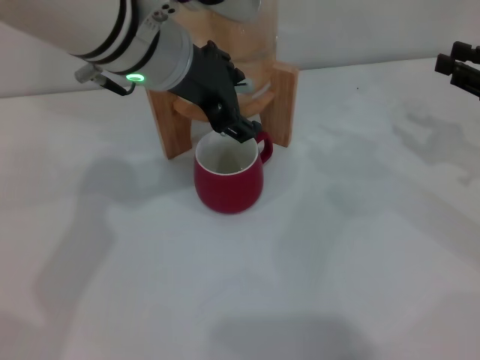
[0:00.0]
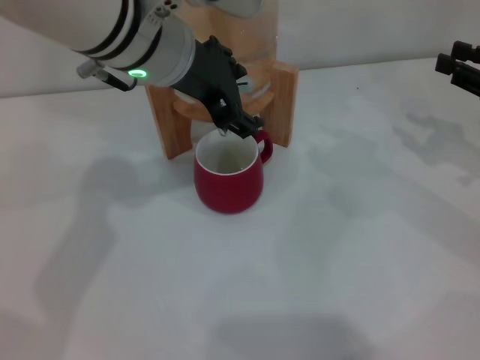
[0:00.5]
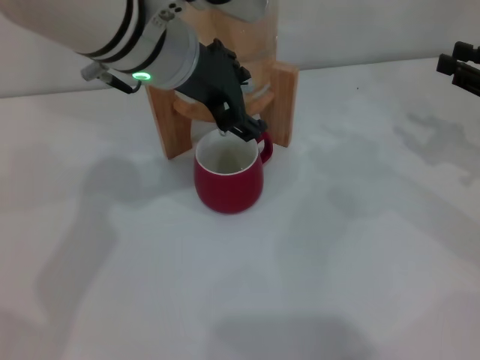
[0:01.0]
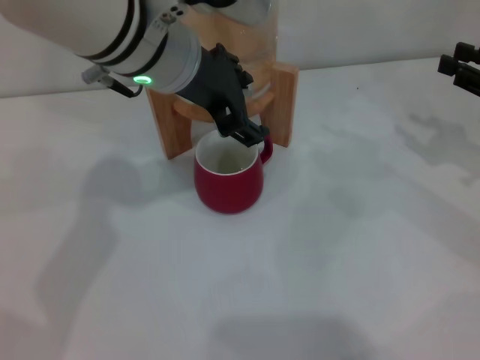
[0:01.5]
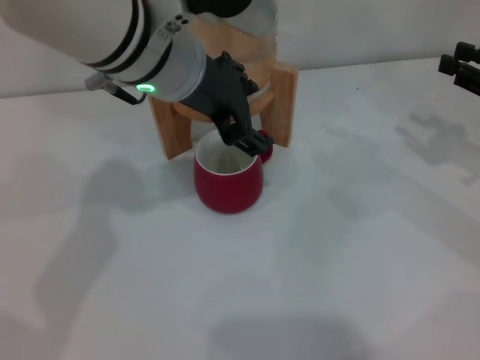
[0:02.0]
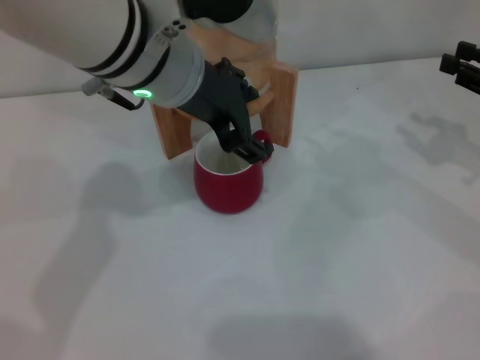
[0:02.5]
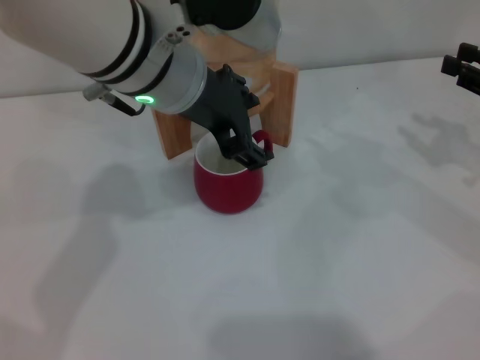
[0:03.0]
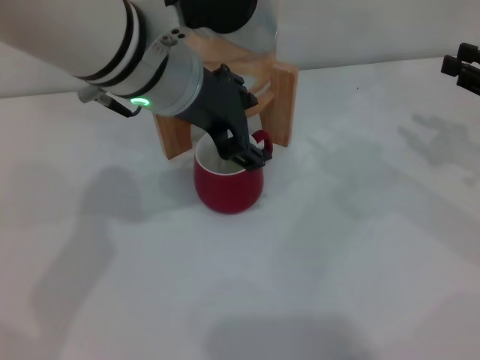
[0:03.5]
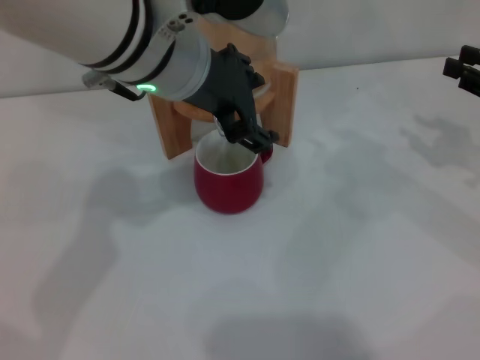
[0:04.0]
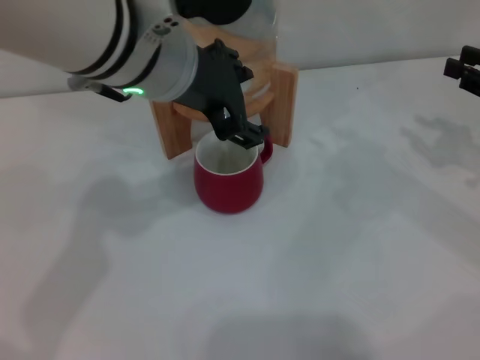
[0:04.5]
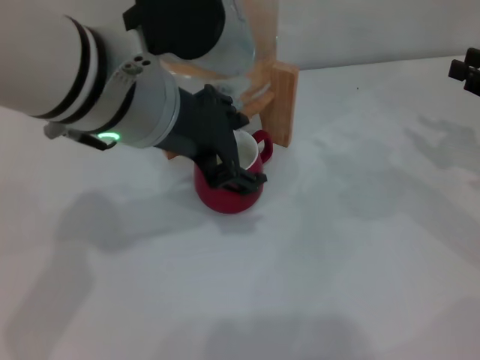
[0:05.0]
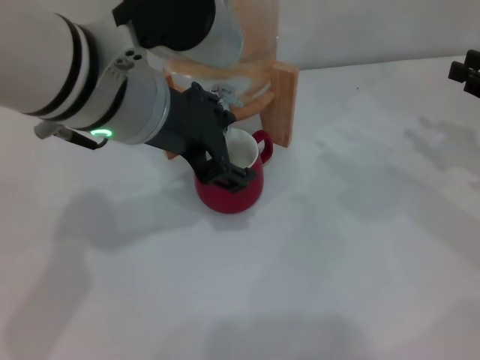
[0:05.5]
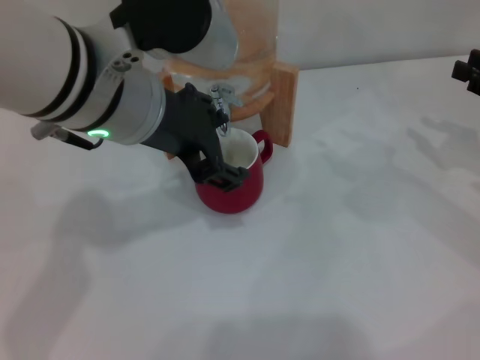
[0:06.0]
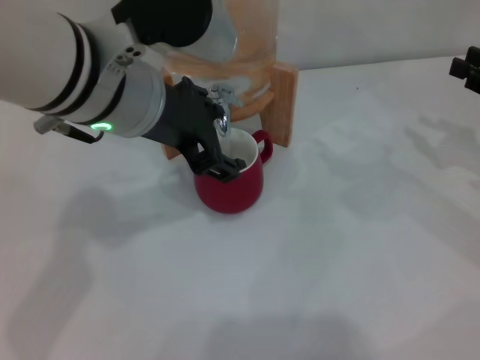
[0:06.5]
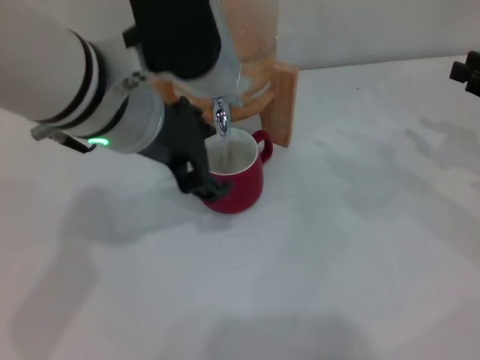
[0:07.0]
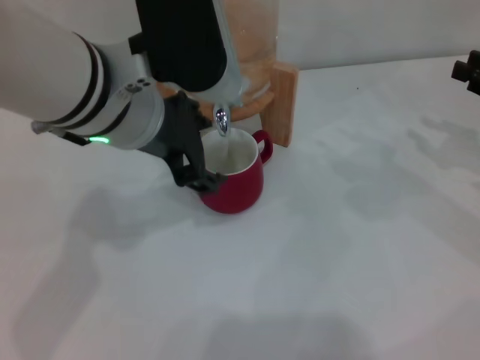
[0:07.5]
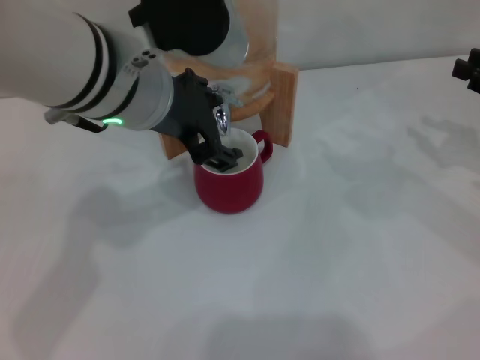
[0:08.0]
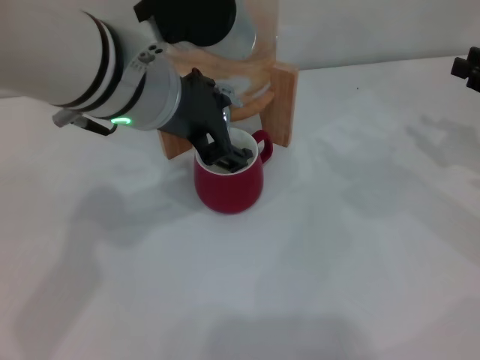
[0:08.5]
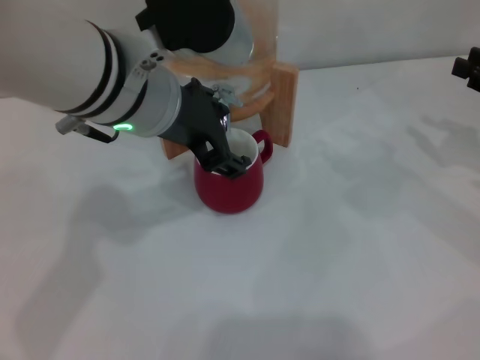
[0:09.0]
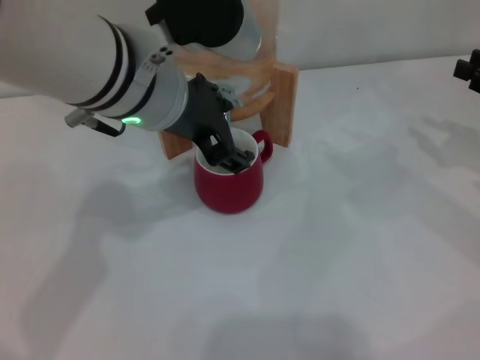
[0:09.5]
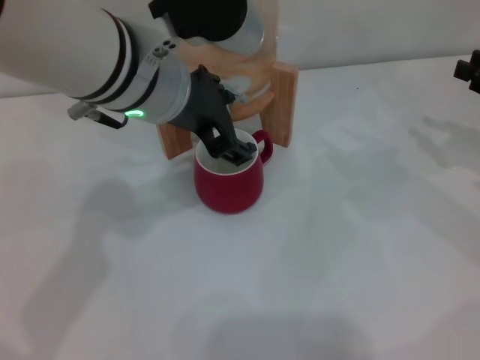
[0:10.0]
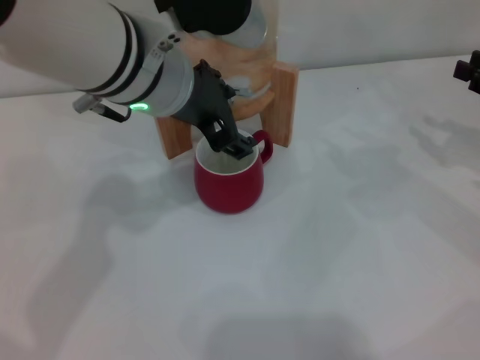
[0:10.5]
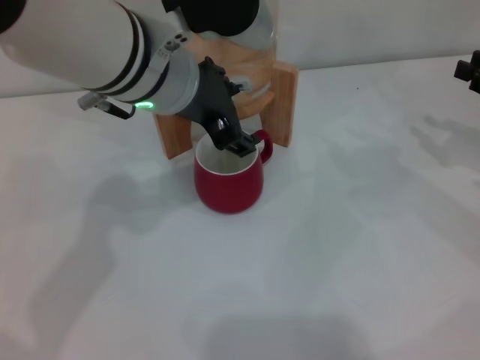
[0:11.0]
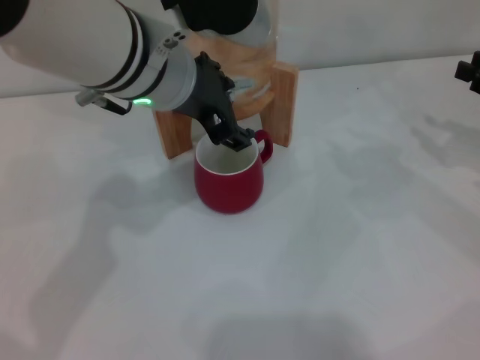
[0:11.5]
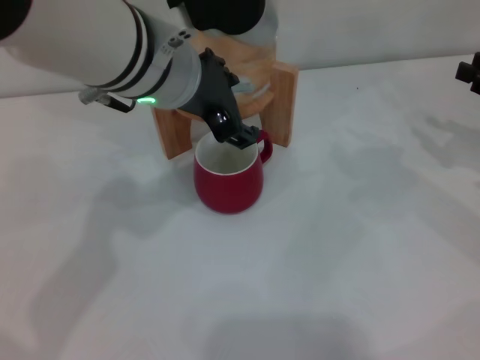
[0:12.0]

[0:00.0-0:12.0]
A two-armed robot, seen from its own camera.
Task of the whole recording: the right gripper pick up the red cup and place it horizontally under the faucet, the left gripper turn on the faucet to fill the cup, and then turn off the faucet.
Step, 0:00.0 to 0:05.5: Open the dispenser valve and fill the cup with water with the left gripper.
0:00.0 to 0:02.0: Both grippers stay put.
0:02.0 to 0:10.0: There are only small adjustments of the grippers.
0:10.0 to 0:12.0: Both grippers stay about where they are.

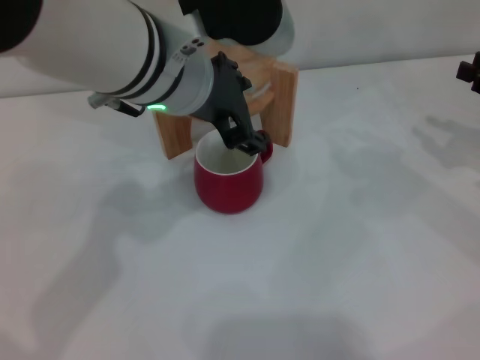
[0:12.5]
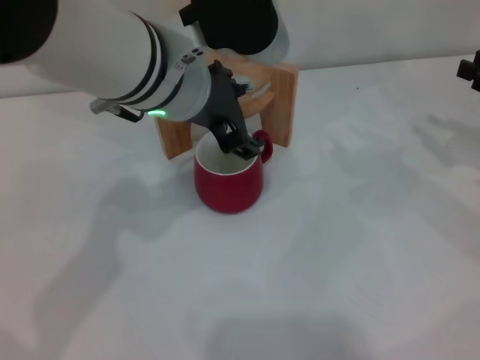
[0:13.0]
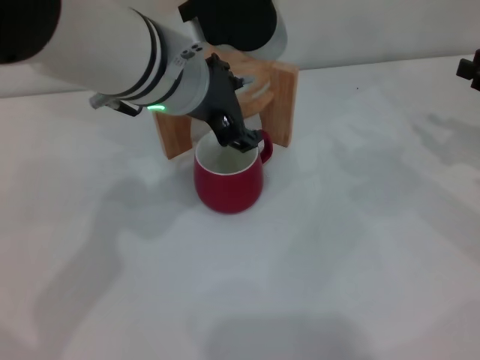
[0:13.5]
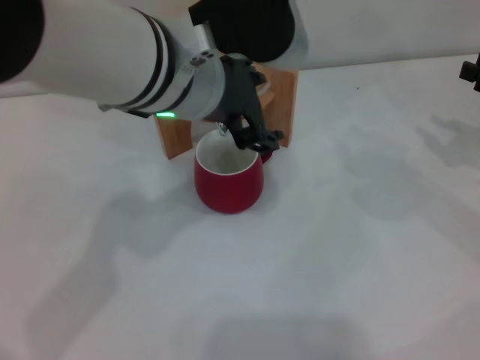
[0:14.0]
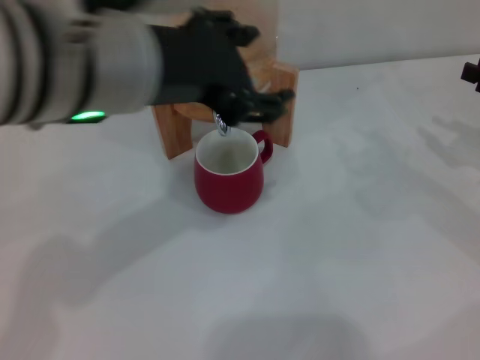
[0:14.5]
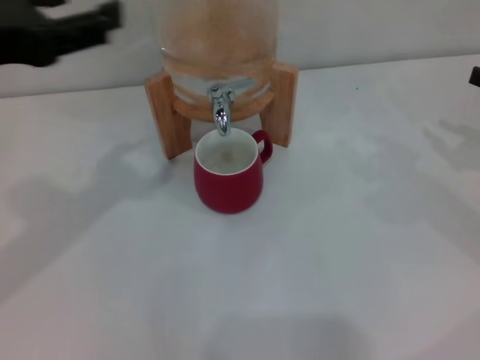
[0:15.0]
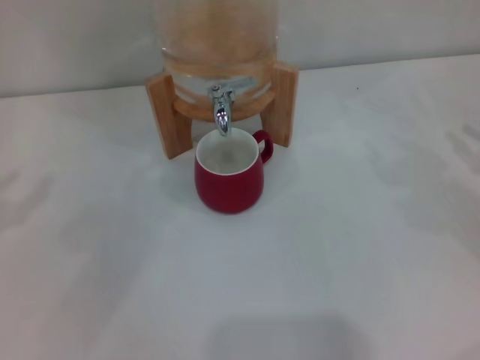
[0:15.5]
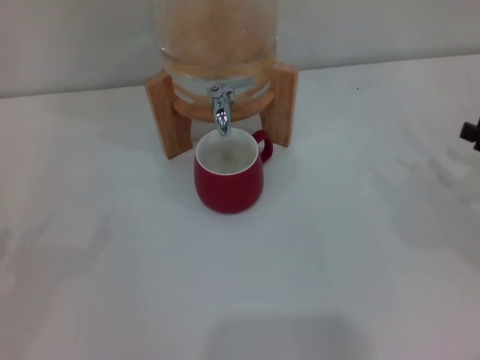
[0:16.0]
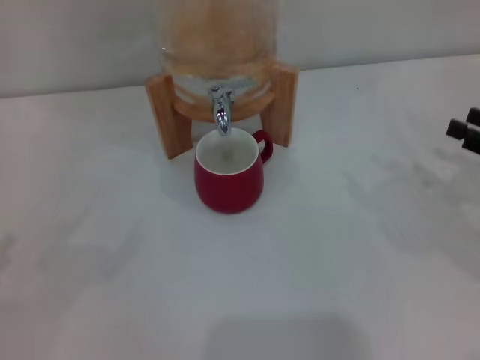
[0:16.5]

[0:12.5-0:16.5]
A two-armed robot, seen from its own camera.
Task of the whole recording: the right gripper pick up the red cup and place it horizontally under the faucet, the left gripper turn on the faucet to fill the cup, and then turn off the faucet.
0:12.5 to 0:14.5: The left gripper shifts some 5 cm backward.
0:14.5 to 0:16.5: The left gripper heads to the left and downward, covering roughly 35 cm. Meanwhile the right gripper moves about 5 cm.
